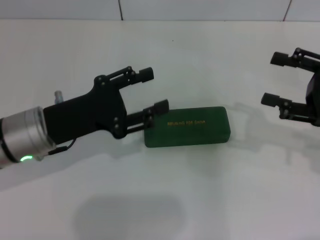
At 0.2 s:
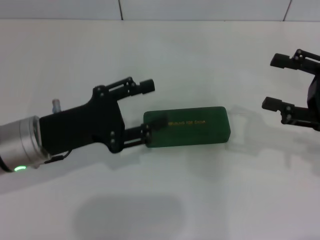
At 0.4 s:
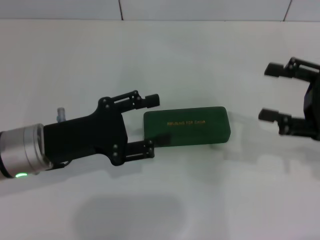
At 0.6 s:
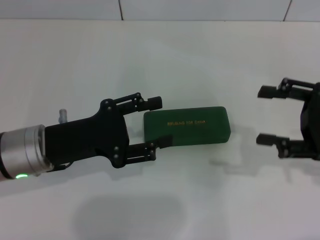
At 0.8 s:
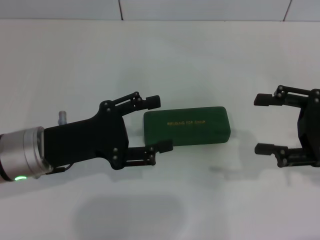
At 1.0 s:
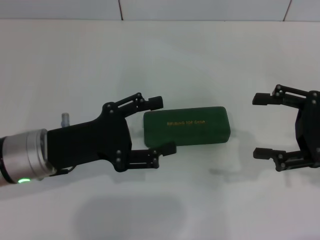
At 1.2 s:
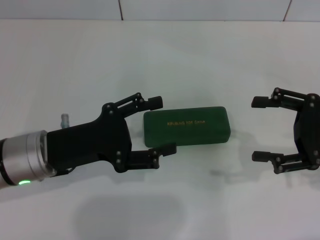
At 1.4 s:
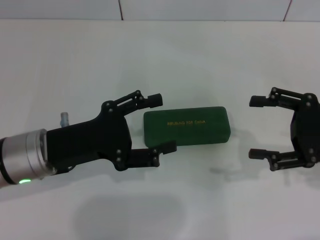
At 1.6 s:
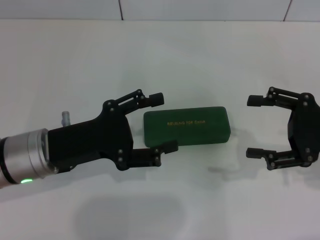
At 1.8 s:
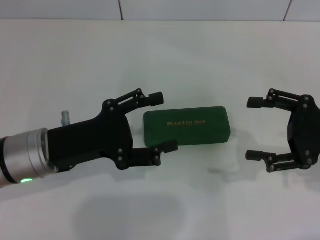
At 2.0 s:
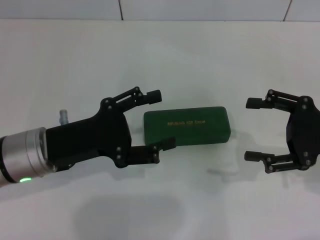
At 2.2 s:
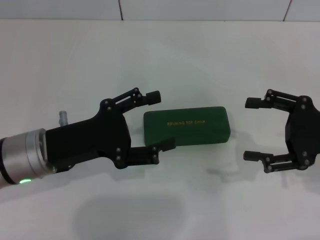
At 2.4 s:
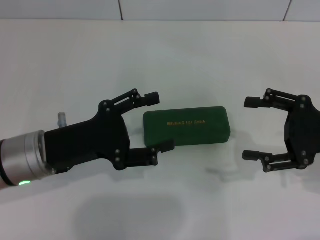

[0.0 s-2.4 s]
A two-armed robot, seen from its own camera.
0.0 to 1.2 s: The grippers stay close to where they were, moving slightly.
1.2 to 2.4 s: Both grippers stay put.
